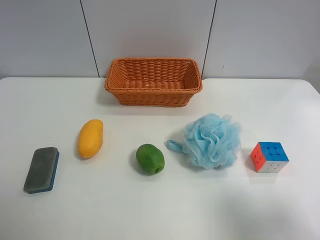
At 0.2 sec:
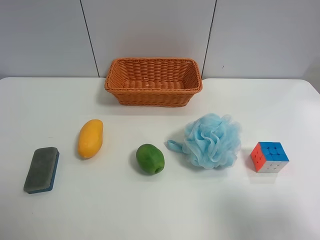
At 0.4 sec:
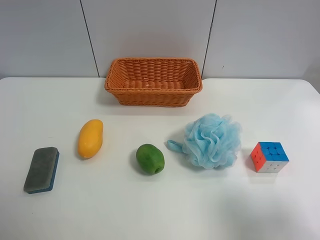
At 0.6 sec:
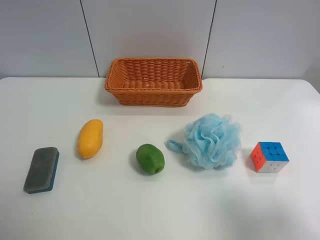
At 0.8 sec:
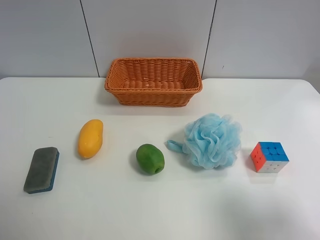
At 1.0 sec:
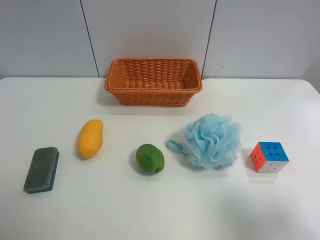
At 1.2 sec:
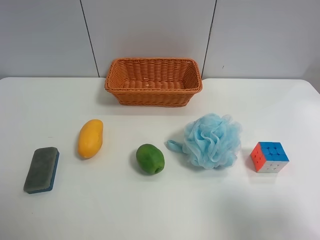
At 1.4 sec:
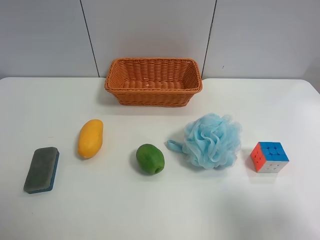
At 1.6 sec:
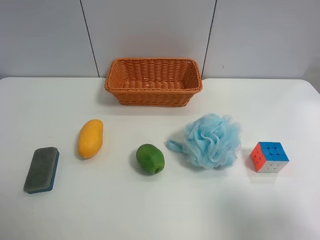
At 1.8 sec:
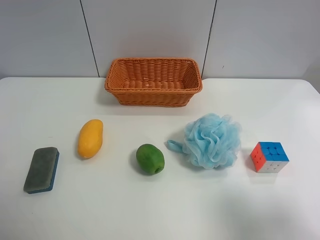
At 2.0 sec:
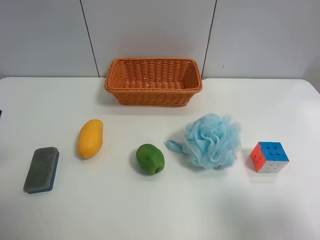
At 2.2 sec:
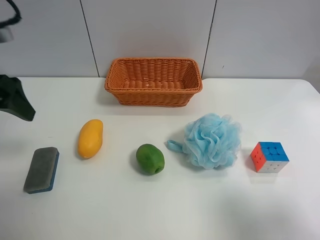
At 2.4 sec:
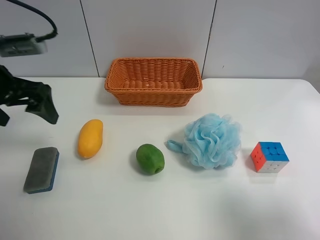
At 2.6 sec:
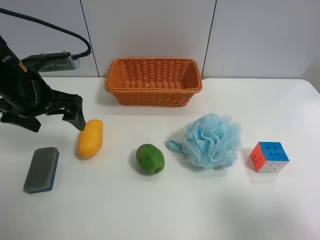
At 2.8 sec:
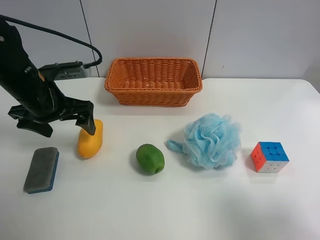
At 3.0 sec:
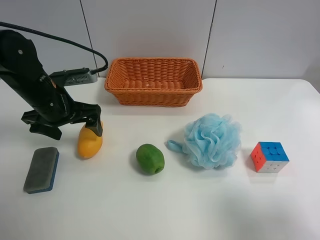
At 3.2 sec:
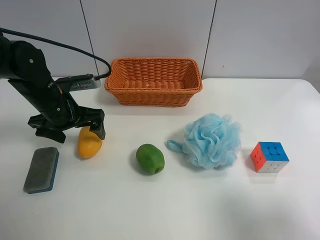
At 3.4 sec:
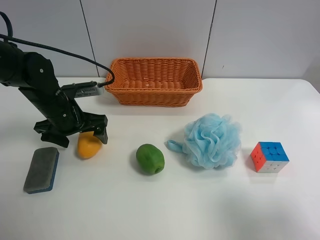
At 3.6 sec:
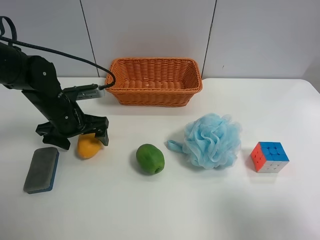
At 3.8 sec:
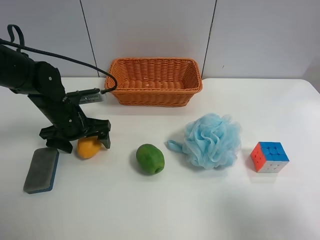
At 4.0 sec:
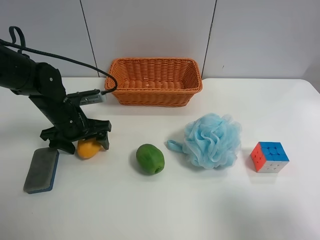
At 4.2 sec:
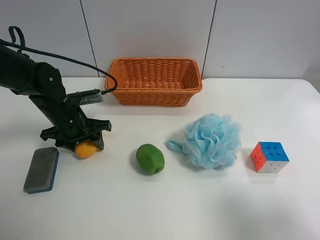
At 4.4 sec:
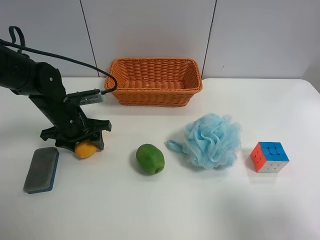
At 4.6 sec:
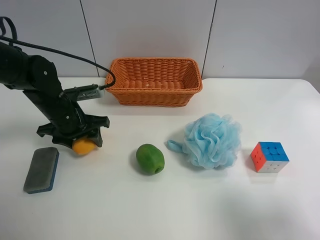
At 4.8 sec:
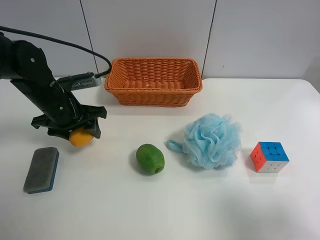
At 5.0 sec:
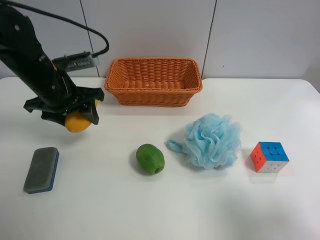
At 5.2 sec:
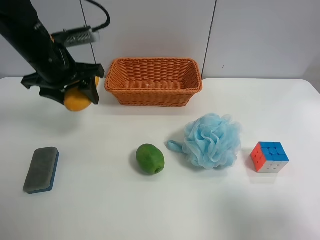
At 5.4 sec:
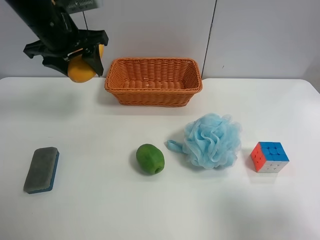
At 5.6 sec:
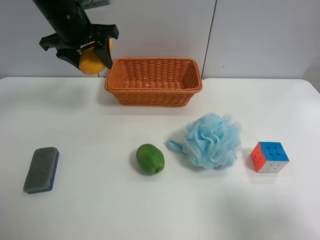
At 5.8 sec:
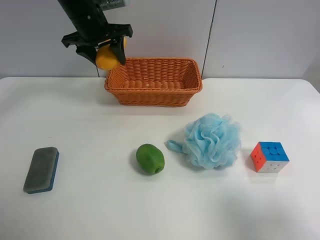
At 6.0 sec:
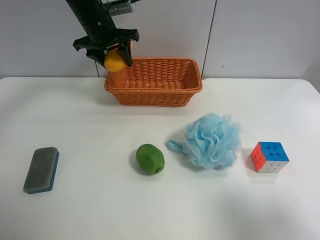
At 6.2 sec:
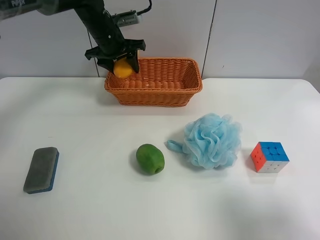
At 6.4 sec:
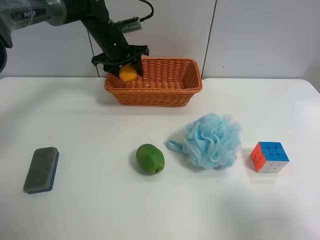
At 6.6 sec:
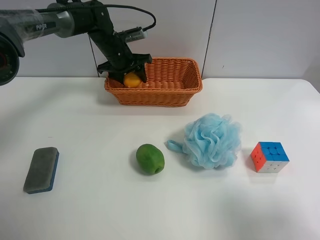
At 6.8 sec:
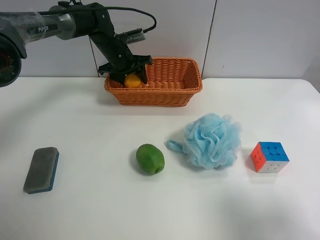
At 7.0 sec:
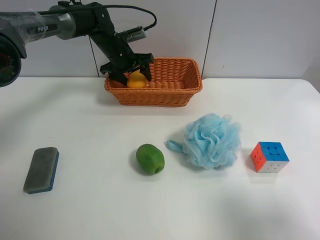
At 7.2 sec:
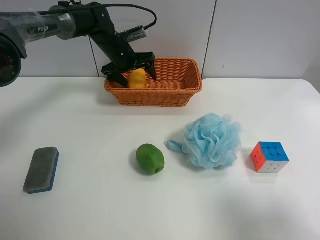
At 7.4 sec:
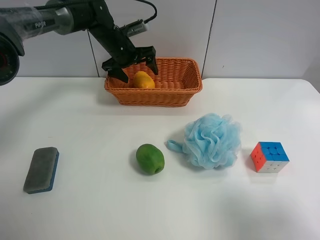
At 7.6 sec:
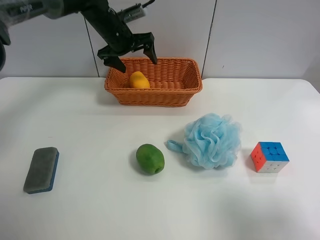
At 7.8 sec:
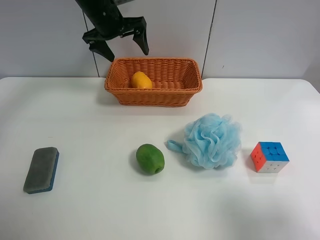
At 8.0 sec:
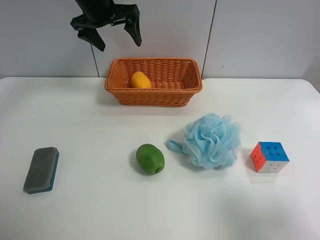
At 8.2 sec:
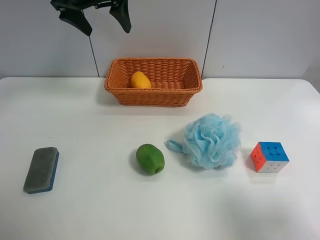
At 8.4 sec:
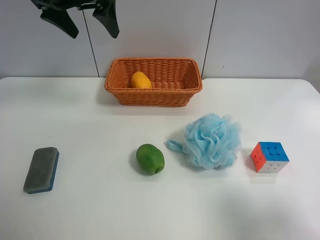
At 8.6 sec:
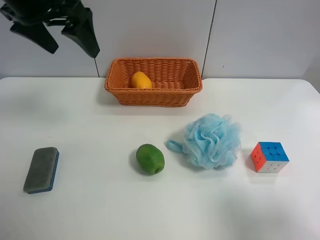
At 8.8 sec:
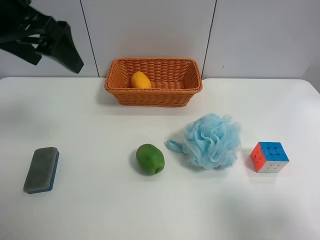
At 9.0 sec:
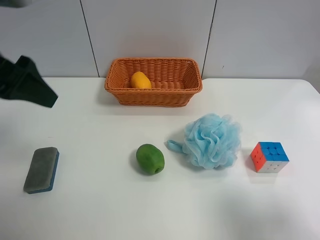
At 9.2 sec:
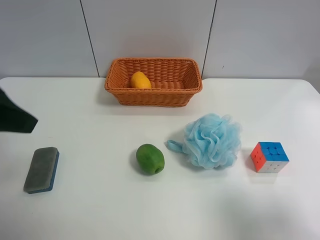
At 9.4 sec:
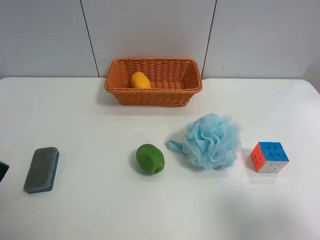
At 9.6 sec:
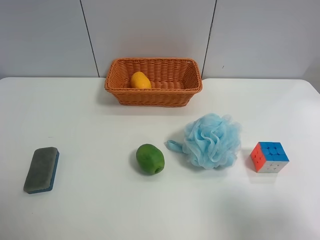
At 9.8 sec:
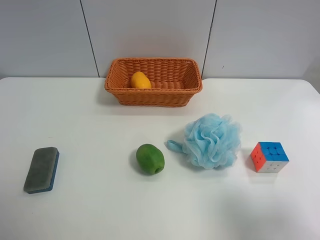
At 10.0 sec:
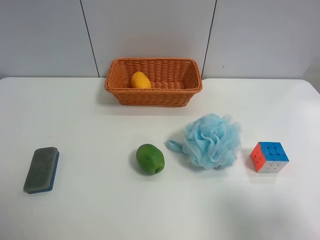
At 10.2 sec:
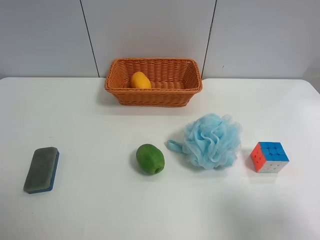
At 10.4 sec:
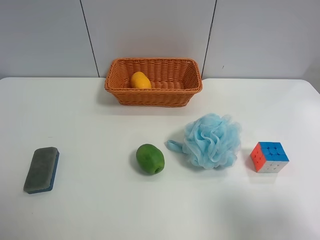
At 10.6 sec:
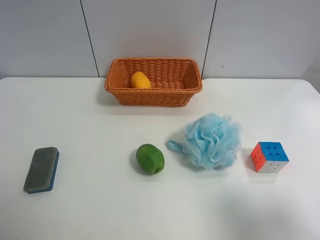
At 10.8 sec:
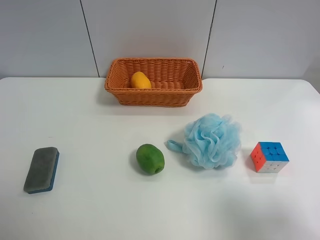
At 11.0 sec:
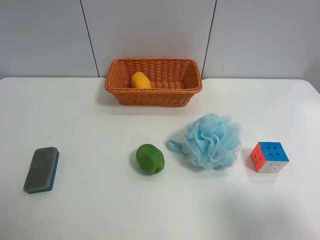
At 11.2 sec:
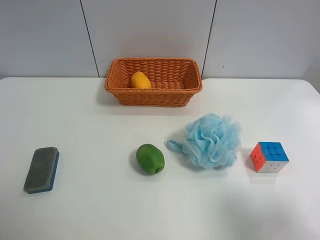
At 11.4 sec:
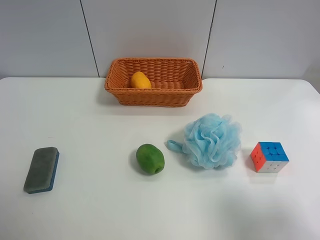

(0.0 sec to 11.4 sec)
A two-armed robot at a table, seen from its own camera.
Task of the whole recording: use the left gripper to grab items from the table and place them in the basket.
Step, 0.0 sec - 4.2 sec: Grasp the mango with the left gripper.
Step, 4.4 sec - 7.2 sec: Place the mango into the basket with the left gripper.
1.4 sec - 2.8 sec: The left gripper is displaced forward by approximately 25 cm.
2.8 sec - 4.2 sec: The left gripper shifts about 10 cm downward, and closes up.
4.2 sec - 5.6 sec: The left gripper heads upward and forward, covering about 20 cm.
5.6 sec - 7.2 sec: The left gripper travels downward, forward and to the right by some 15 cm, and opens.
7.2 sec - 8.6 sec: The left gripper shifts approximately 25 cm backward and upward.
8.6 sec - 10.0 sec: The left gripper travels backward by roughly 30 cm.
